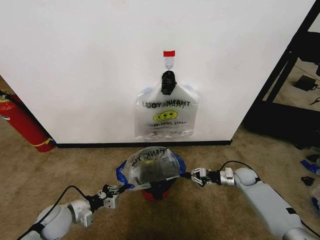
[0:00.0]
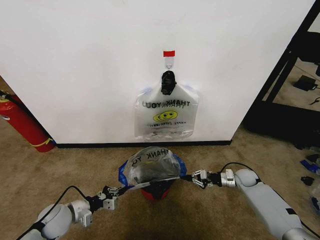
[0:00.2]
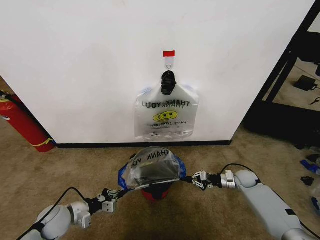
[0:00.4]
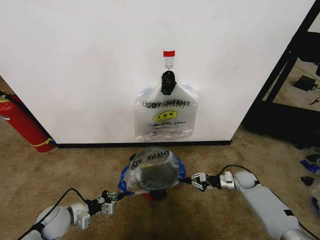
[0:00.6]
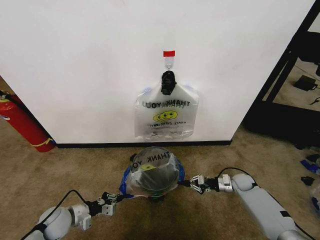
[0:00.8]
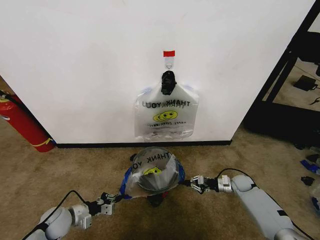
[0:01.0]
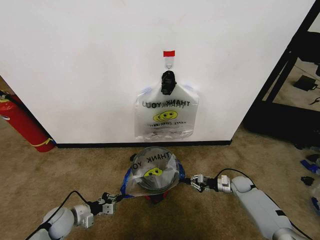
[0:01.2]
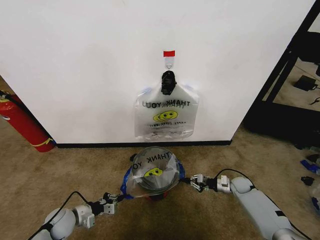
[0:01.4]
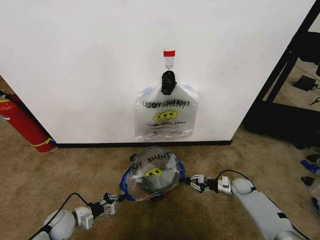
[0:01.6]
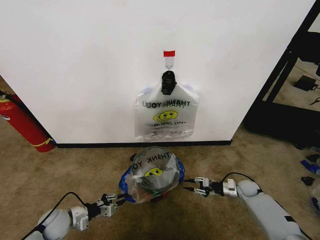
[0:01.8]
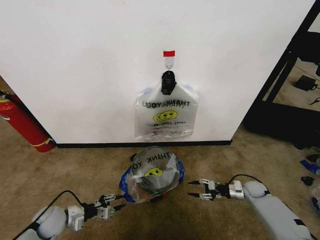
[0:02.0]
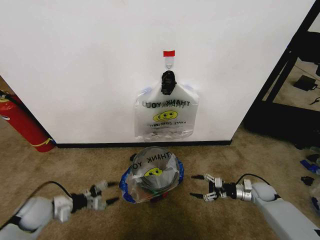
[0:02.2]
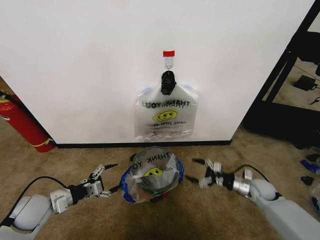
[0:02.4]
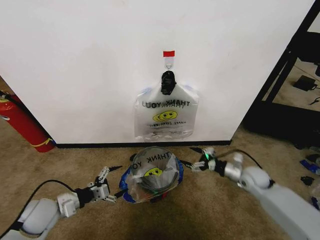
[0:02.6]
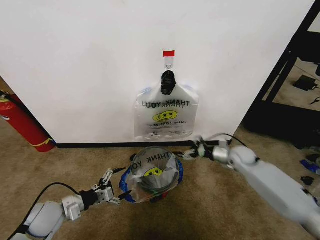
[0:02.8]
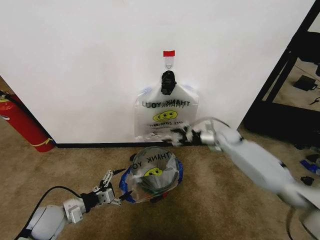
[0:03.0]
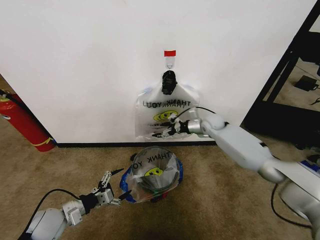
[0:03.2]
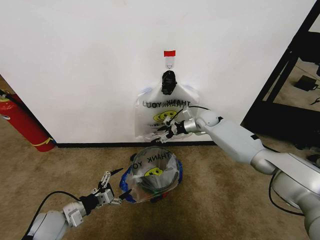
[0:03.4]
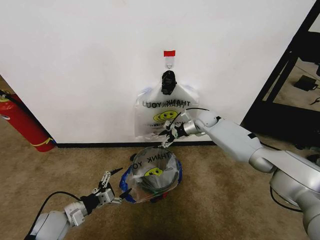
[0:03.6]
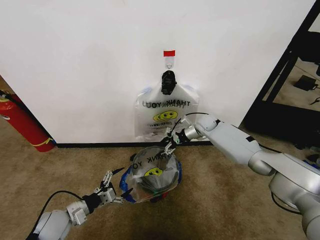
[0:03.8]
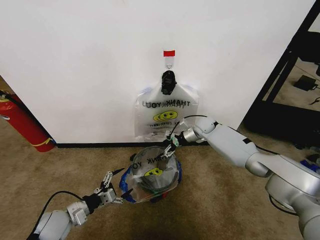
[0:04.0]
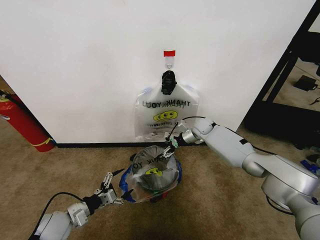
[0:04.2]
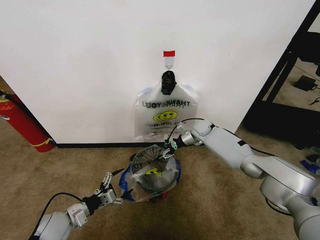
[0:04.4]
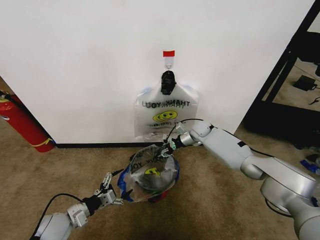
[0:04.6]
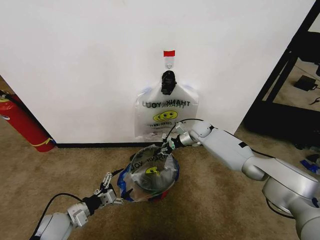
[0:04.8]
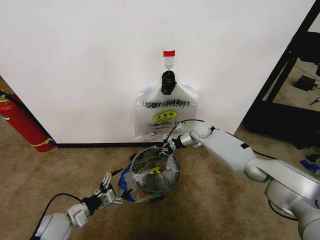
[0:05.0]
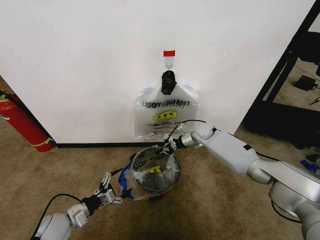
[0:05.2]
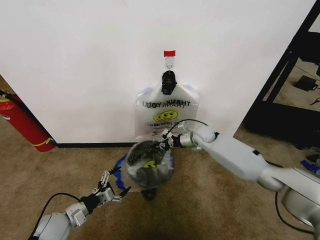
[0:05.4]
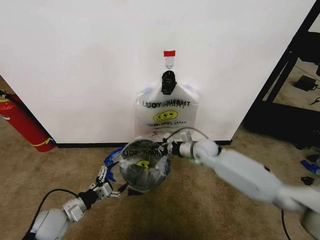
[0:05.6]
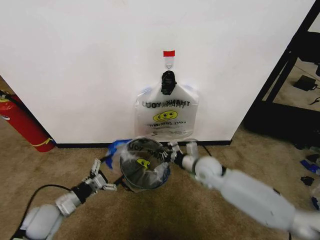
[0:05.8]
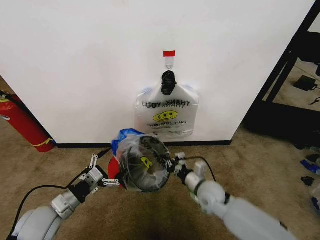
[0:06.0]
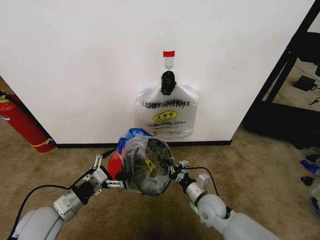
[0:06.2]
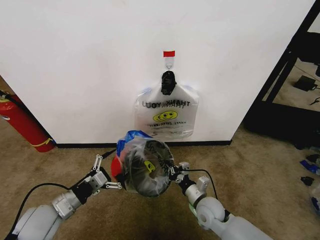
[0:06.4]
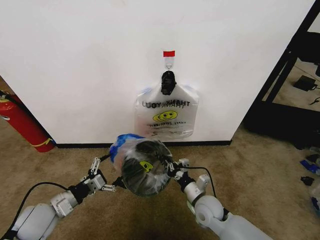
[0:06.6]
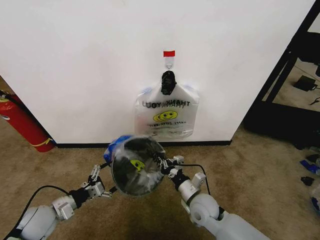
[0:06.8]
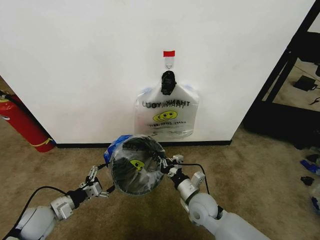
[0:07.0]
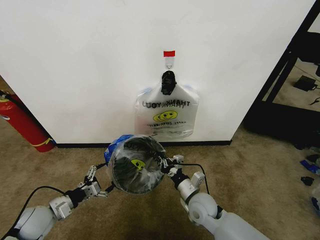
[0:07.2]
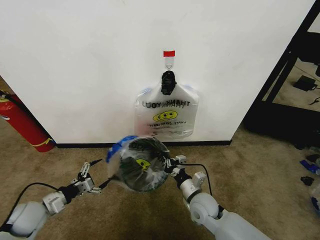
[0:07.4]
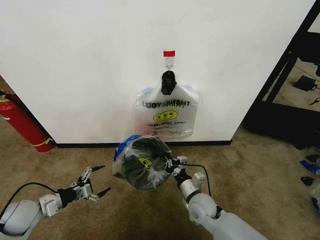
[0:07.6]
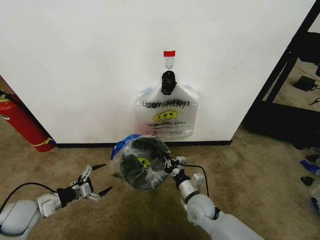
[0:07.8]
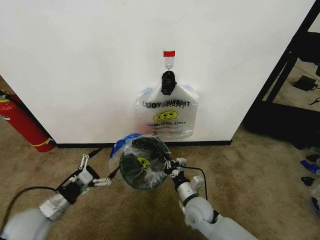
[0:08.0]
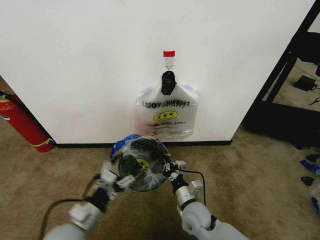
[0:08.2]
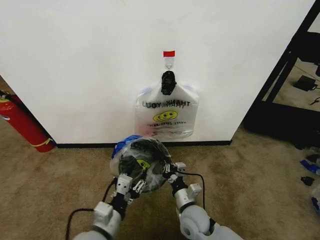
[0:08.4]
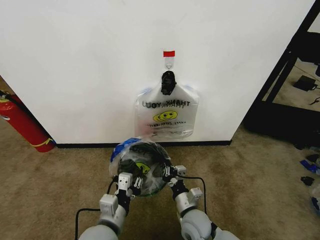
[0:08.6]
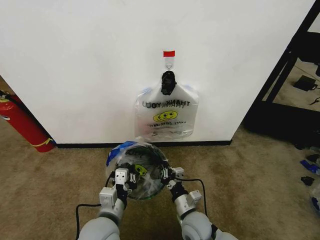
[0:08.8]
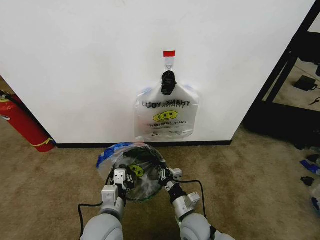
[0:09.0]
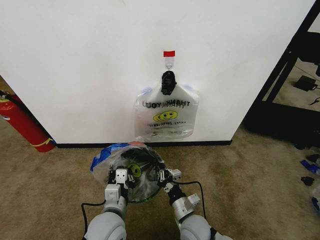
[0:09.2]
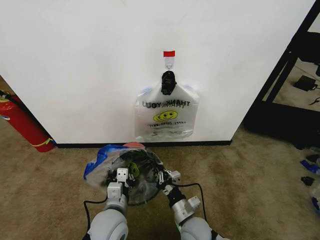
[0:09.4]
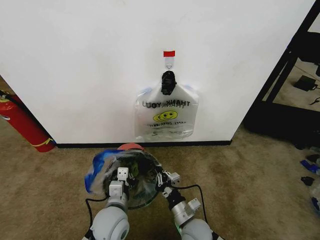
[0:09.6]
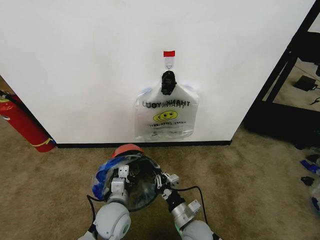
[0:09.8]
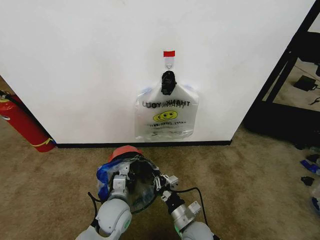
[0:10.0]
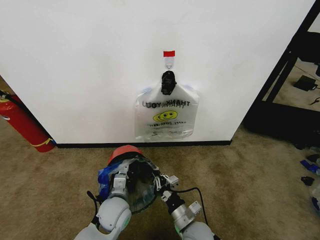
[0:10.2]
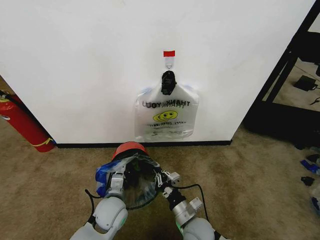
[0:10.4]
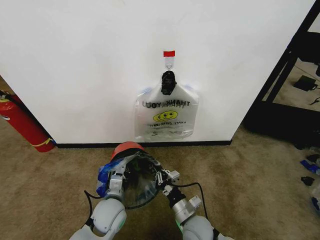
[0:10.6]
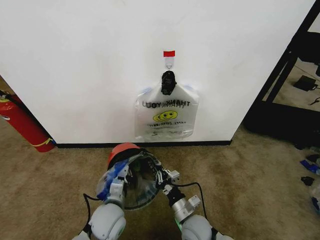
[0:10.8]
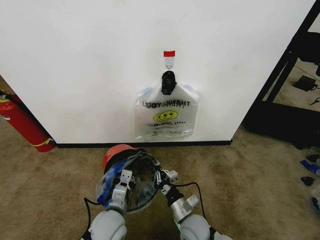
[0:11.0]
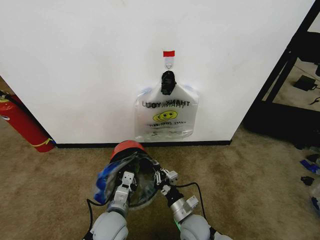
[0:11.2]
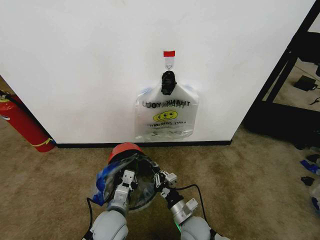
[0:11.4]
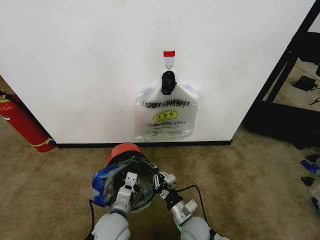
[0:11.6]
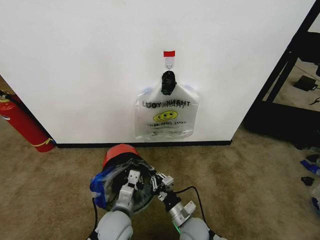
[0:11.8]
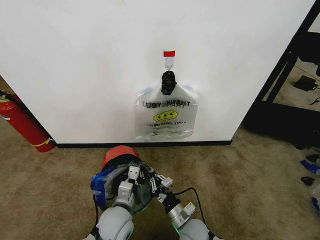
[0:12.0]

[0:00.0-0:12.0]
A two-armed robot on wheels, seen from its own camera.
Task of the whole recording: Pick up the garbage bag from the wall and place it over the trash bin.
0.0 to 1.6 s: The two grippers go roughly 5 cm downward.
1.6 to 3.0 s: The right gripper moves upward, forward and to the left, roughly 30 cm, and opens; the left gripper goes some 10 cm upward, and opens its fingers.
3.0 to 4.4 s: The right gripper shifts roughly 10 cm to the left and forward, and closes its fingers.
4.4 to 6.0 s: The right gripper goes roughly 25 cm backward, and closes; the left gripper shifts approximately 10 cm upward.
6.0 to 7.6 s: The right gripper changes place by some 5 cm; the left gripper goes some 10 cm to the left.
7.6 to 9.0 s: The left gripper heads to the right, covering about 30 cm, and closes its fingers; the right gripper is displaced backward by approximately 5 cm.
9.0 to 10.4 s: The left gripper moves forward and downward, some 10 cm.
10.4 to 12.0 s: The left gripper ends up some 5 cm from where it was.

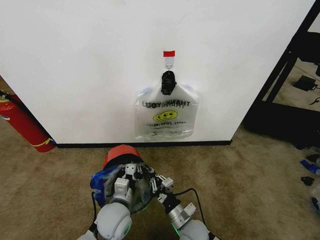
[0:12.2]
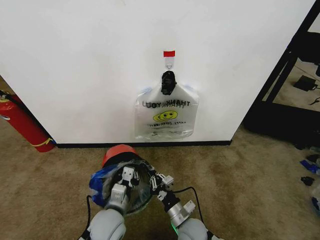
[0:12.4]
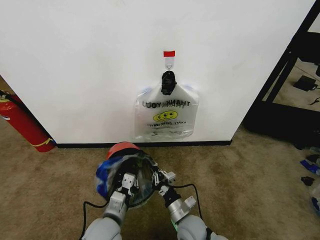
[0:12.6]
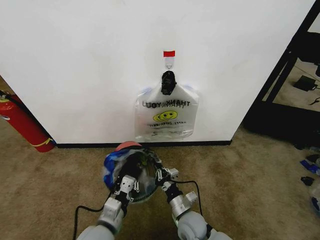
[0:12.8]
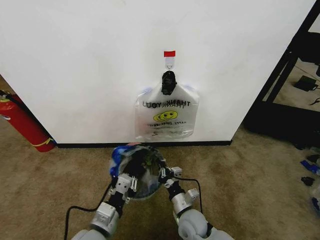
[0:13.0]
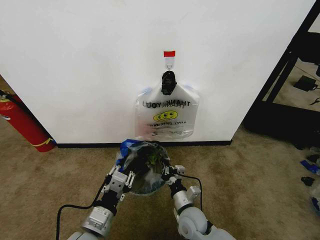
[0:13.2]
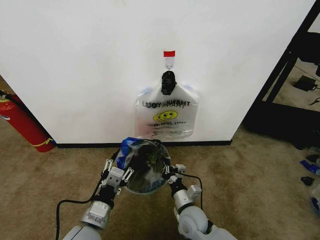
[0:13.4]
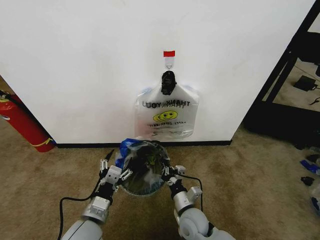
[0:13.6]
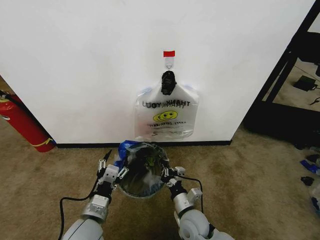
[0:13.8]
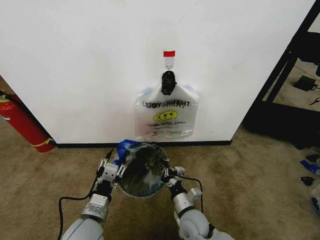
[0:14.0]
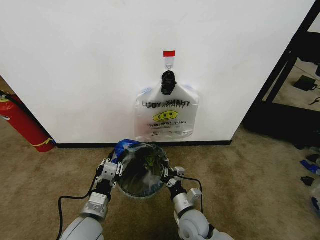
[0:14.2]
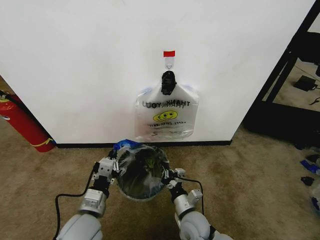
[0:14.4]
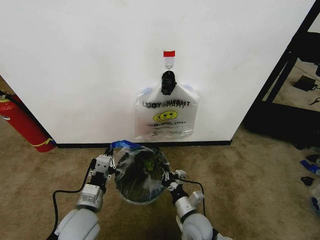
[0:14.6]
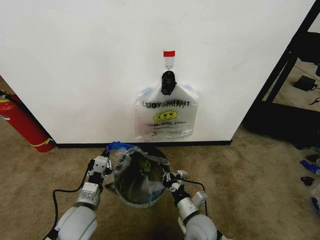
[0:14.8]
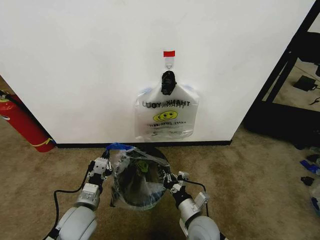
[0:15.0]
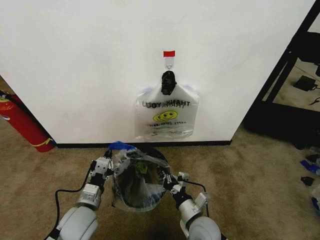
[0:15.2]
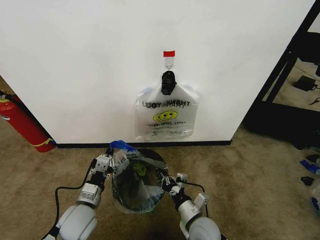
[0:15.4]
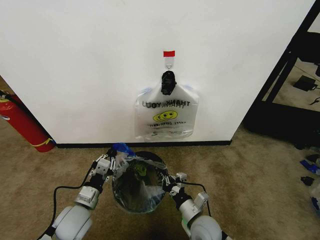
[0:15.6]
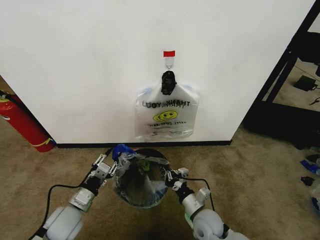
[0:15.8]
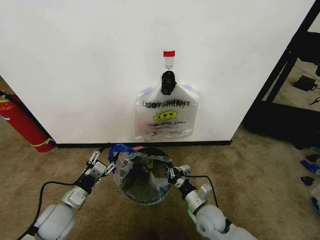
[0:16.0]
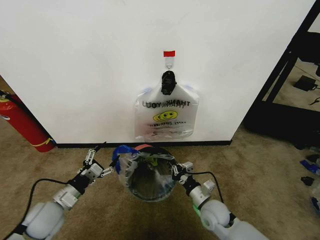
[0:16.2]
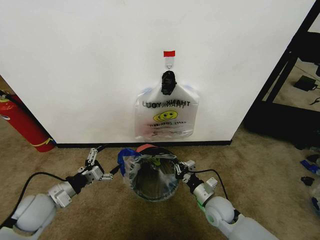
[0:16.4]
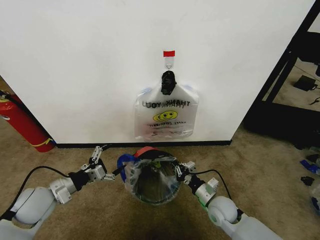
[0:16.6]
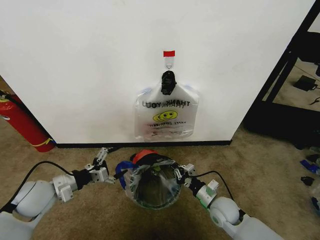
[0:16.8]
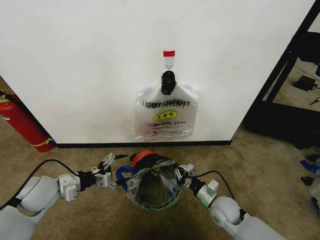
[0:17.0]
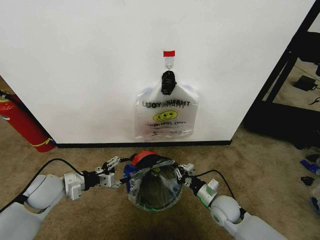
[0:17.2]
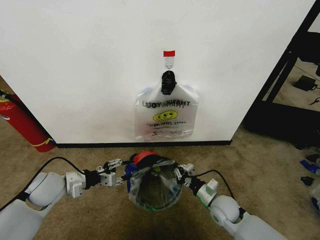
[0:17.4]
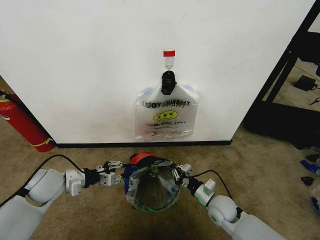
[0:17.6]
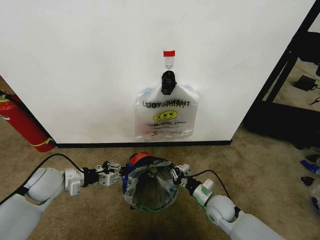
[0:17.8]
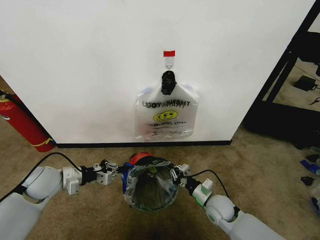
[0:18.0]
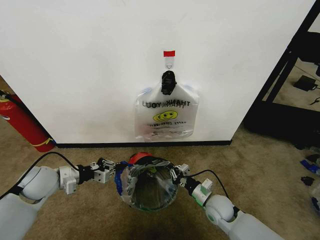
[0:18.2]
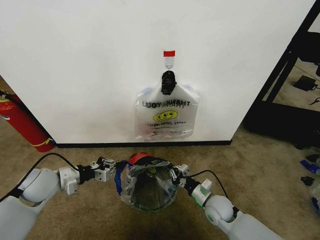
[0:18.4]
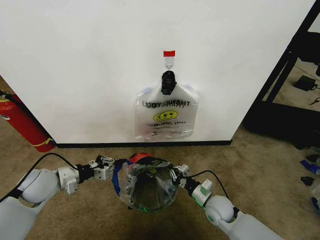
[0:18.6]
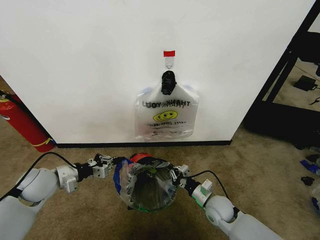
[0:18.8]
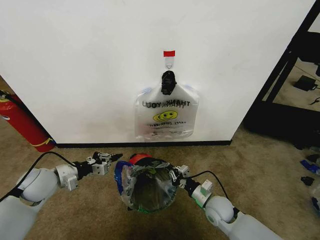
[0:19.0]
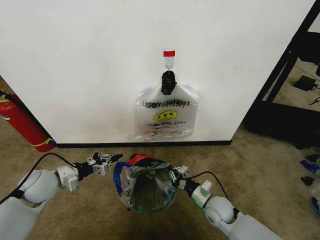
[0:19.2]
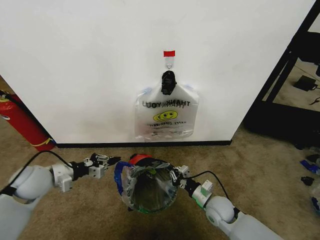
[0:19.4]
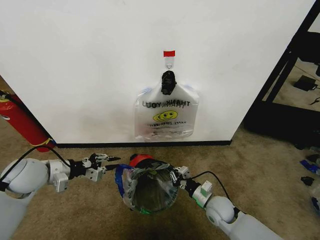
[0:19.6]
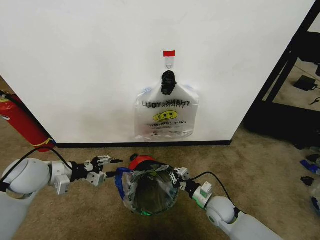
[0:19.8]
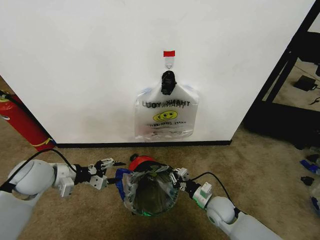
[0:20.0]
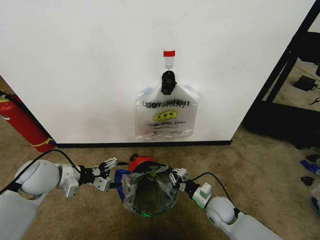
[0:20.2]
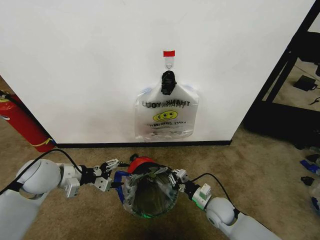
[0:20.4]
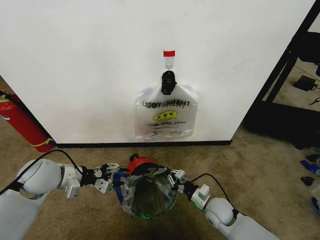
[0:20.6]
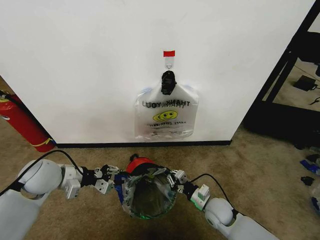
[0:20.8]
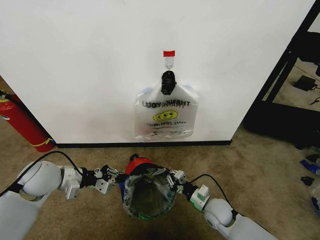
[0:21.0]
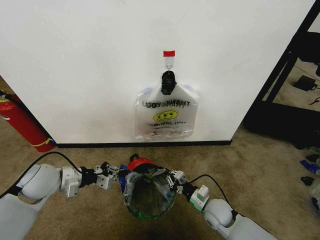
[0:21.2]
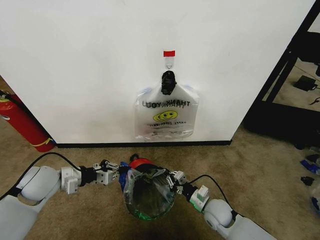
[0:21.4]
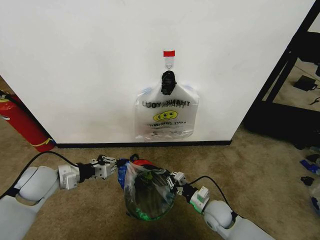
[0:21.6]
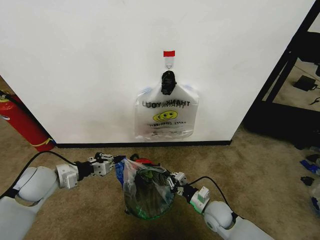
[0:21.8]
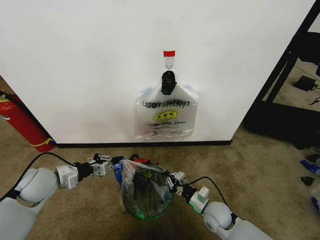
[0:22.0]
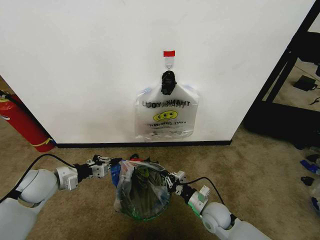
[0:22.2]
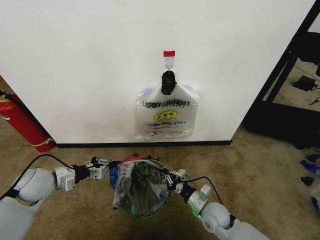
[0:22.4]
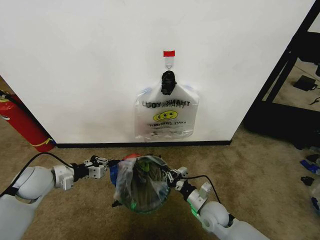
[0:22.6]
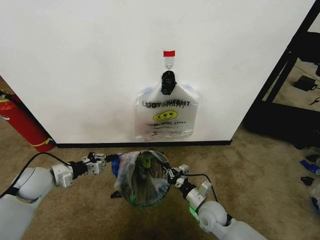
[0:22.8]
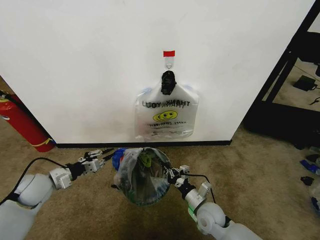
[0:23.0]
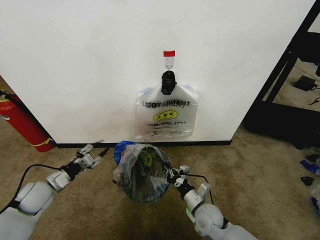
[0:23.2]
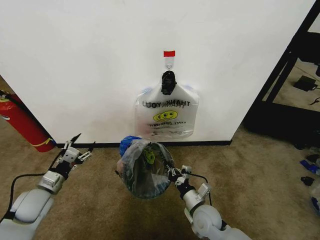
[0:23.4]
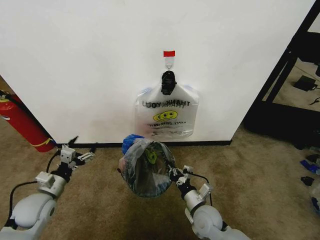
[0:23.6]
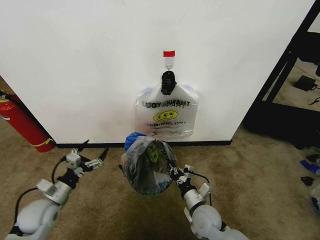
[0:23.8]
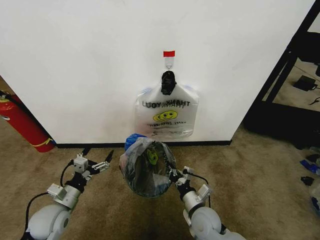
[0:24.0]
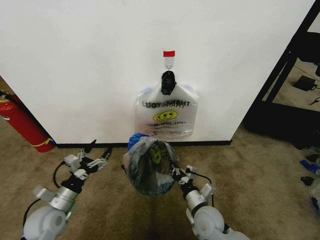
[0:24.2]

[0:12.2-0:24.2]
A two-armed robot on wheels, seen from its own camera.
Task of the whole recording: Pick up the garbage bag from the wall and place it over the trash bin.
12.2 to 13.8 s: The left gripper shifts approximately 10 cm to the left and backward, and opens its fingers.
13.8 to 15.2 s: The left gripper moves roughly 5 cm, and closes its fingers.
15.2 to 16.6 s: The right gripper shifts approximately 10 cm to the right and forward. Meanwhile the left gripper shifts about 15 cm to the left, and opens its fingers.
16.6 to 18.2 s: The left gripper moves forward, some 5 cm, and closes.
18.2 to 19.8 s: The left gripper opens.
19.8 to 21.2 s: The left gripper closes up.
21.2 to 22.6 s: The left gripper shifts by some 5 cm.
22.6 to 24.2 s: The left gripper shifts about 15 cm backward, downward and to the right, and opens its fingers; the right gripper moves some 5 cm.
